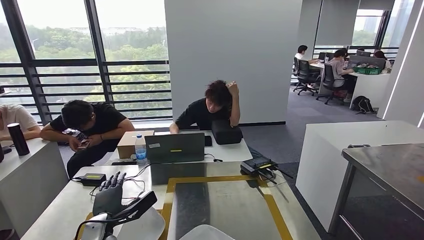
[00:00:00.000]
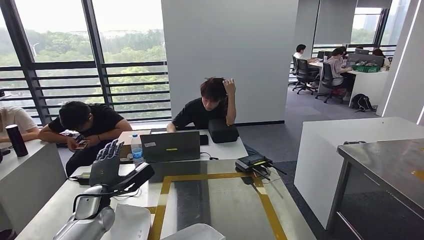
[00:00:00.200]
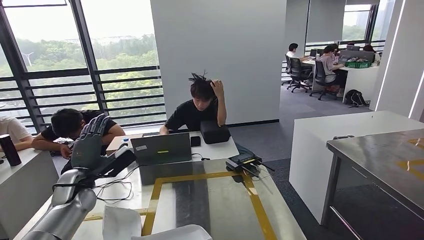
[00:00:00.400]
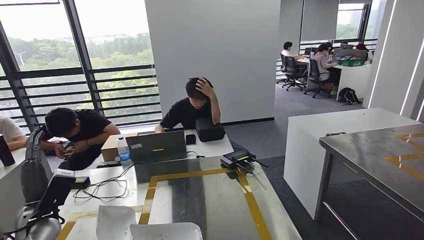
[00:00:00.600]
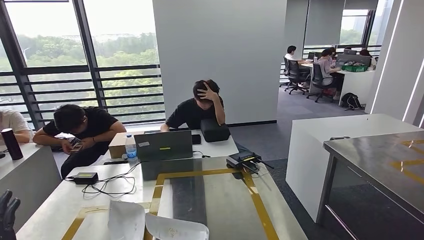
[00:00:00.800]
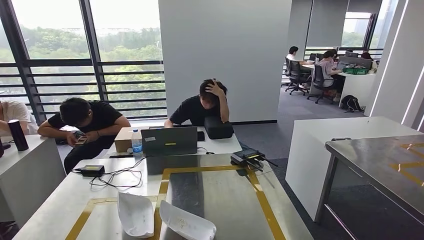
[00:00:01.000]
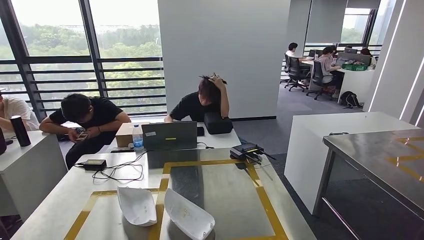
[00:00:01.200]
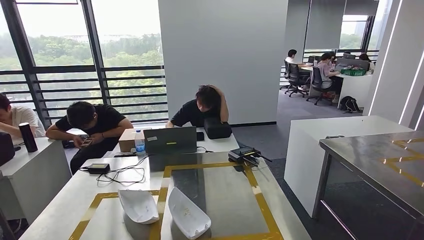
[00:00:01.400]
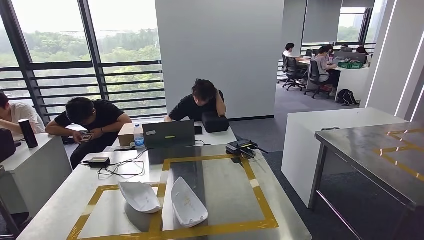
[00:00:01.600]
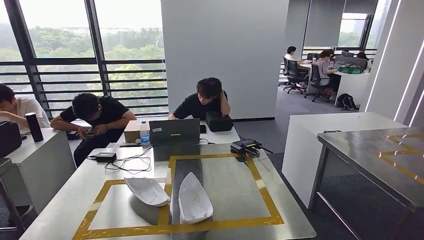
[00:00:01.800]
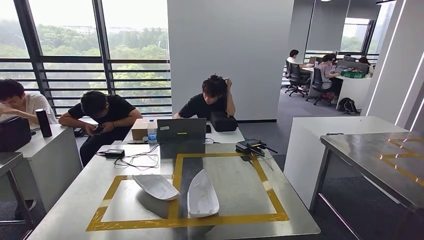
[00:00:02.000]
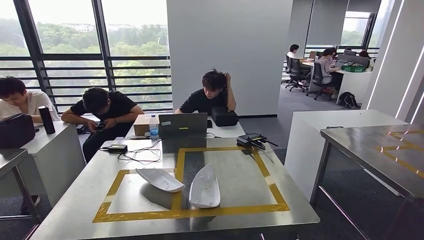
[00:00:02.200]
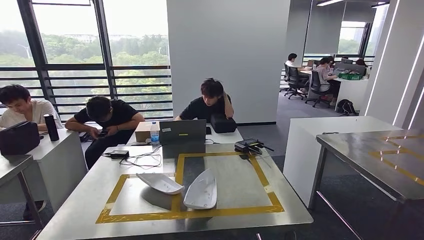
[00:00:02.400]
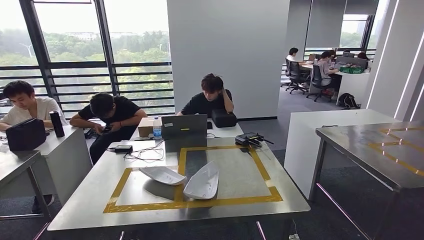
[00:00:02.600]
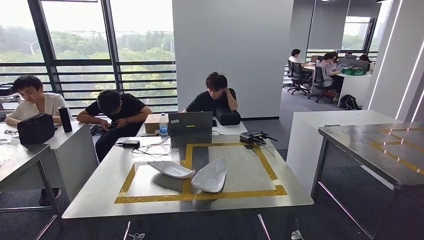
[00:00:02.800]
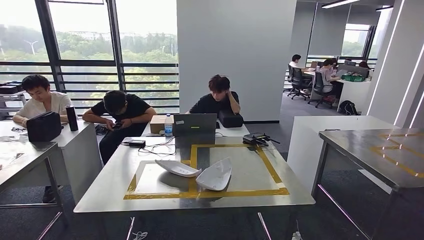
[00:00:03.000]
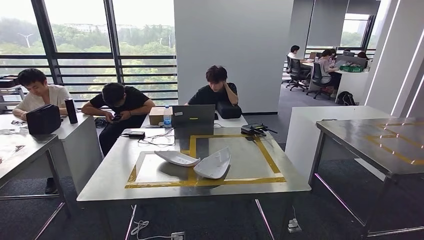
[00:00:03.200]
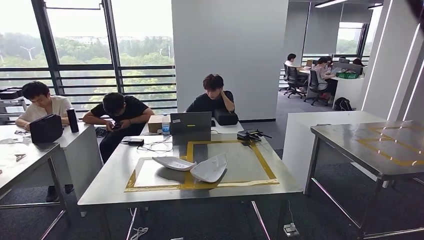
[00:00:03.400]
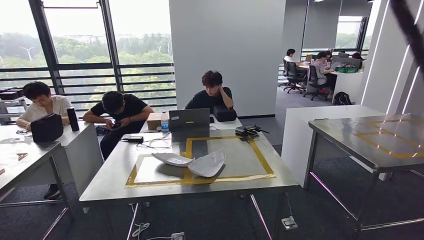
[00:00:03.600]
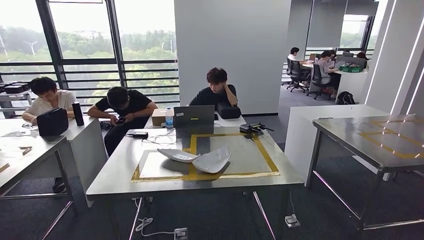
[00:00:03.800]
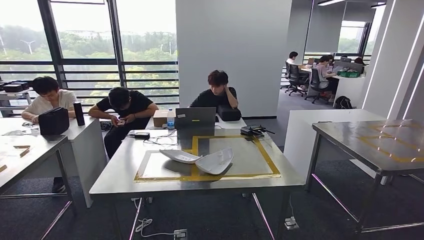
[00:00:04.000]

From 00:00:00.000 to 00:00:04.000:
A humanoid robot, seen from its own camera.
Step, from 00:00:01.800 to 00:00:04.000: Move to the initial position at the workbench.
